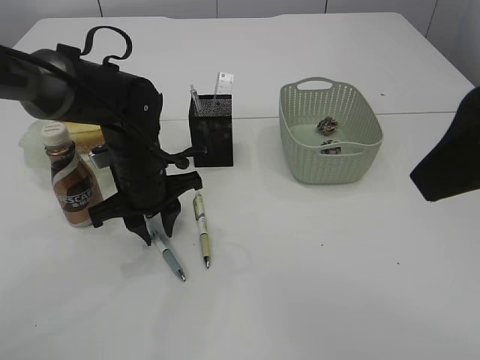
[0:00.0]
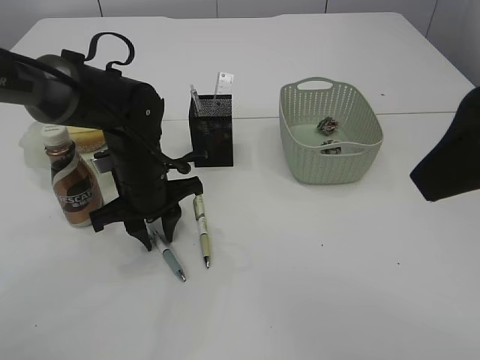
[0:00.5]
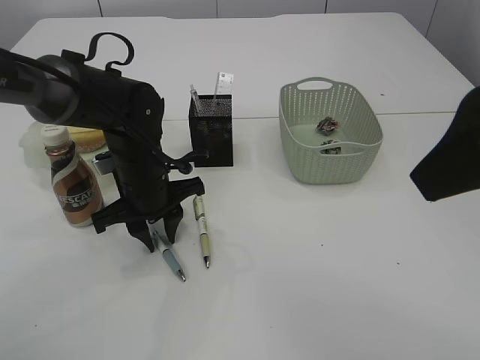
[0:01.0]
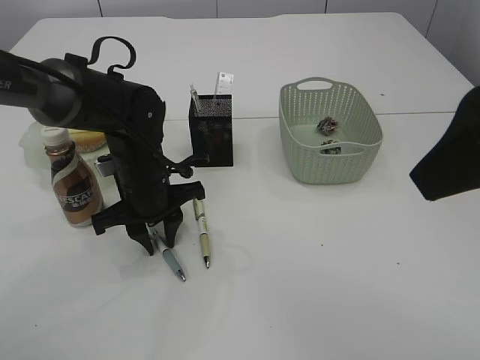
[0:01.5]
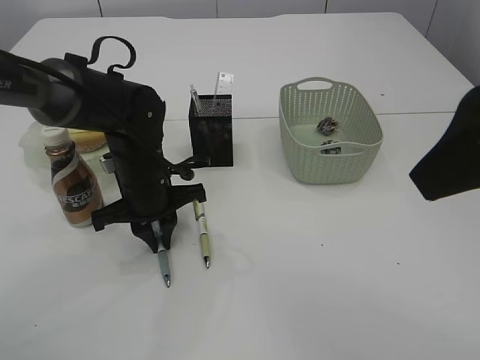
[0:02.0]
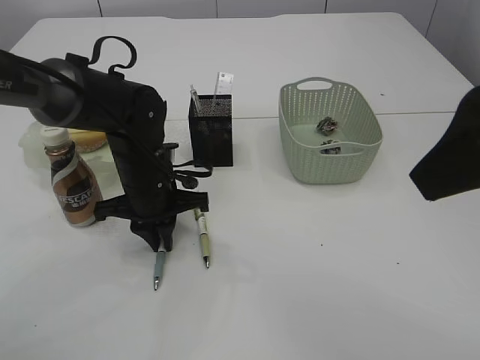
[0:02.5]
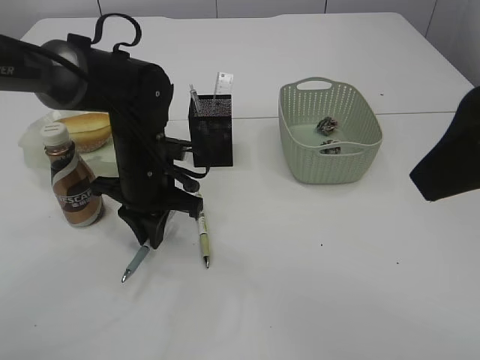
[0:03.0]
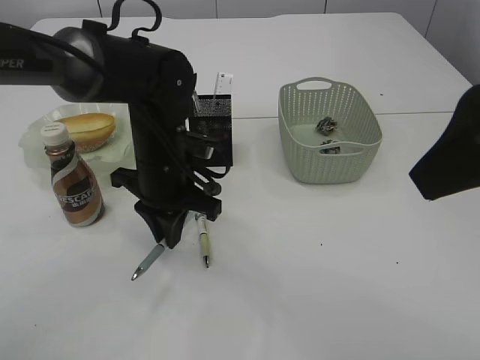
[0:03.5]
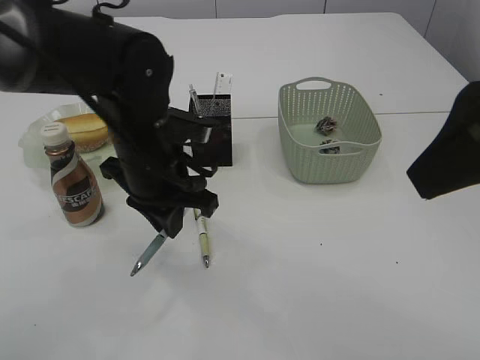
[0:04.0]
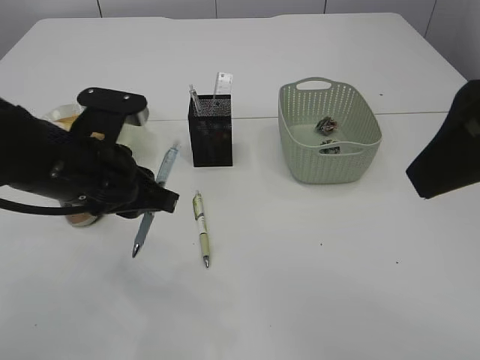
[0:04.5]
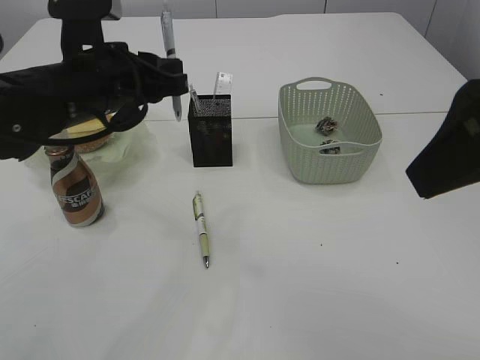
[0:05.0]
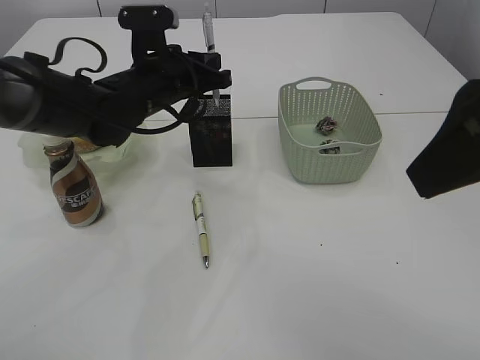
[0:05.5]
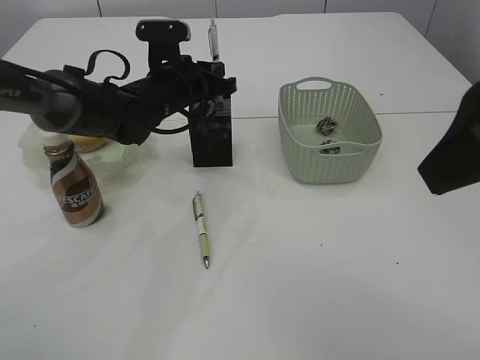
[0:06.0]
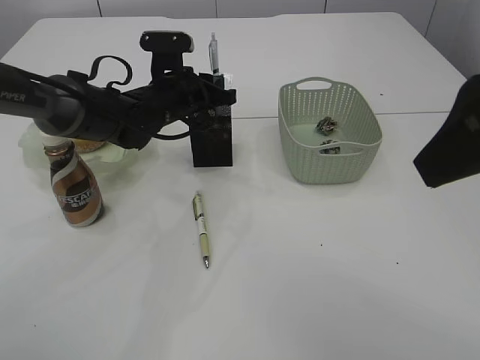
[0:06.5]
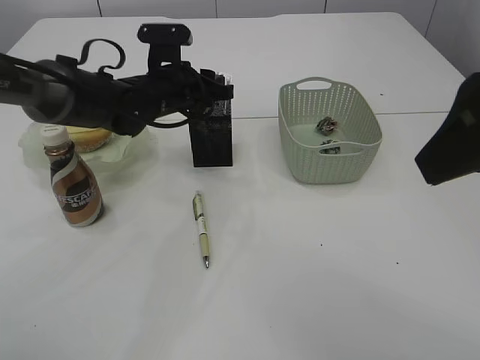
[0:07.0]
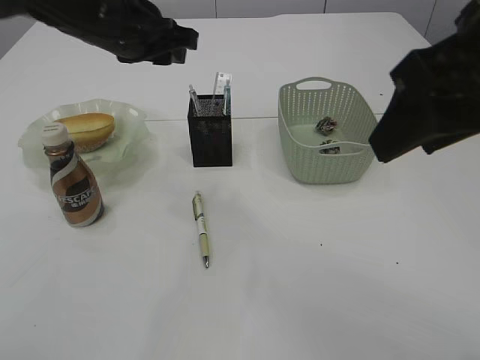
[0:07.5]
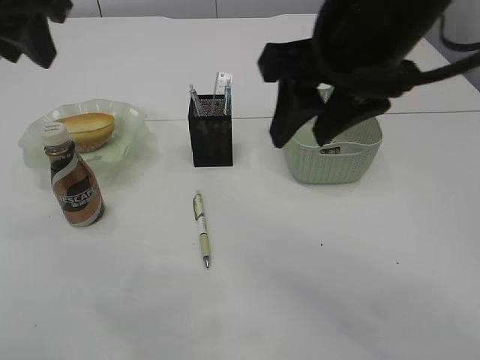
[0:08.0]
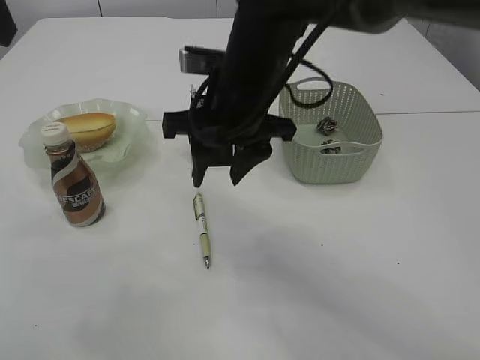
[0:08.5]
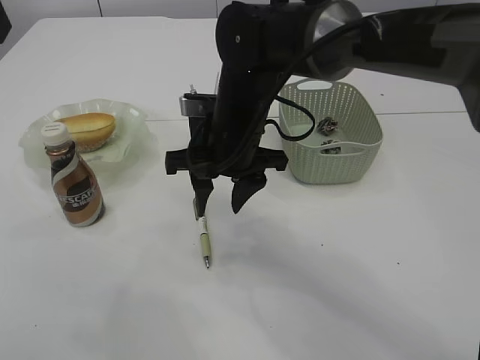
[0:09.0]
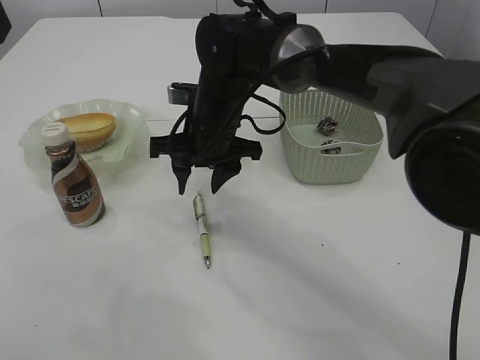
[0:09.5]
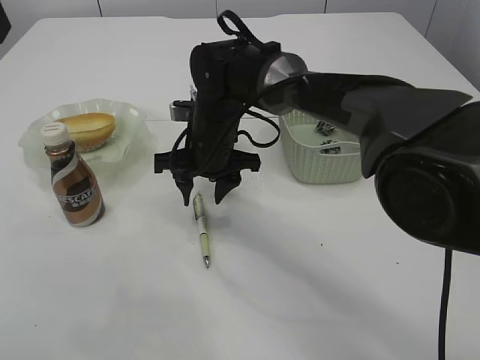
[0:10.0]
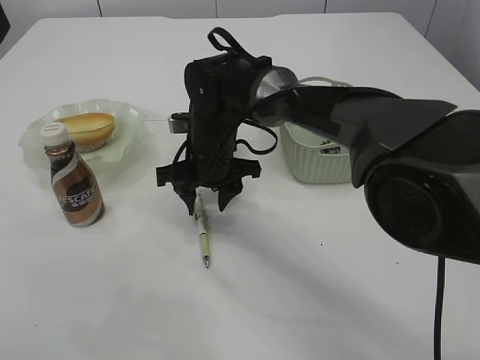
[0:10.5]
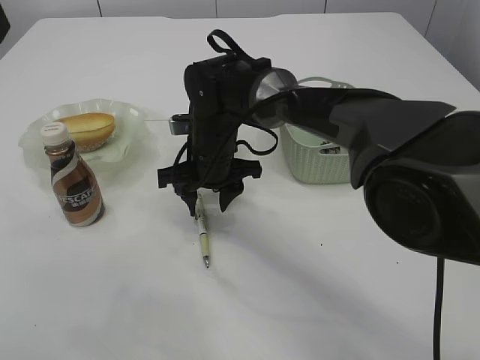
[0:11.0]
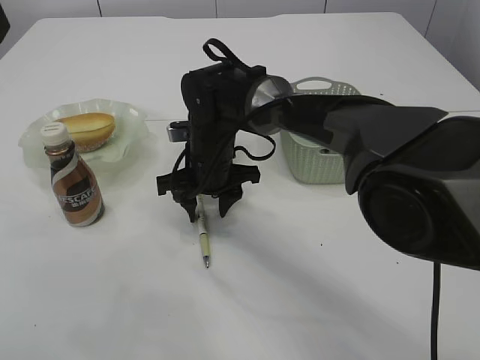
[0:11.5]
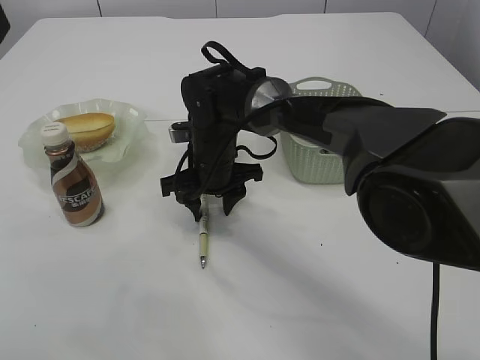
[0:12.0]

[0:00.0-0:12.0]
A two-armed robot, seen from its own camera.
Step, 0:00.0 to 0:03.5: Pick up the pen with left arm.
Step, 0:04.0 to 0:07.5: Place the pen into the pen holder.
0:00.0 to 0:02.0: There are only small adjustments of the grippers.
0:02.0 to 0:04.0: The left gripper is displaced upward by some 5 cm.
0:04.0 to 0:06.0: The left gripper heads forward, covering roughly 15 cm.
0:06.0 to 0:08.0: The left gripper shifts about 30 cm upward, backward and to the left, and opens up. Meanwhile the right gripper moves forward and to the left, about 15 cm.
0:08.0 to 0:10.0: The right gripper goes some 25 cm downward, forward and to the left.
0:10.0 to 0:12.0: There are only small adjustments of the grippers.

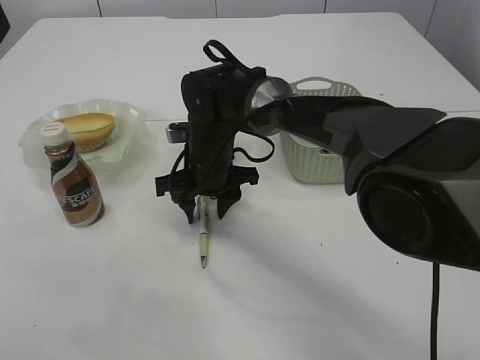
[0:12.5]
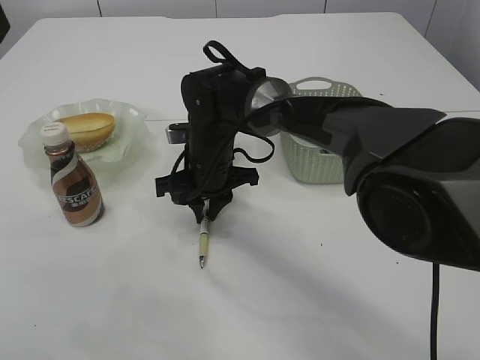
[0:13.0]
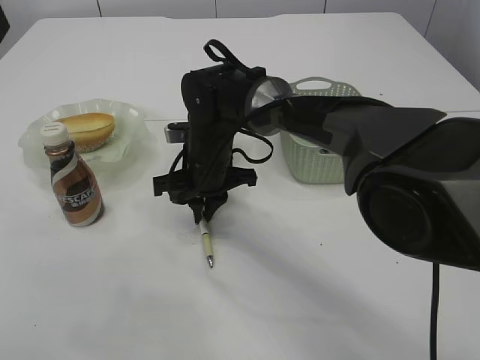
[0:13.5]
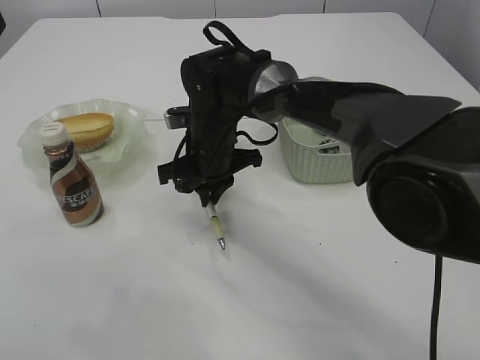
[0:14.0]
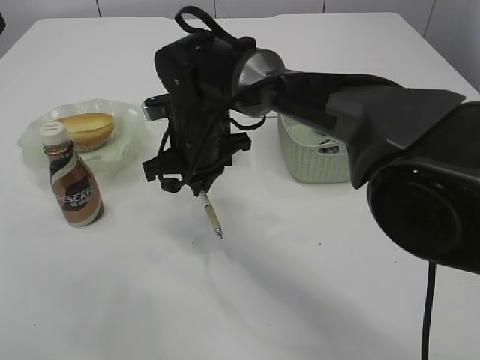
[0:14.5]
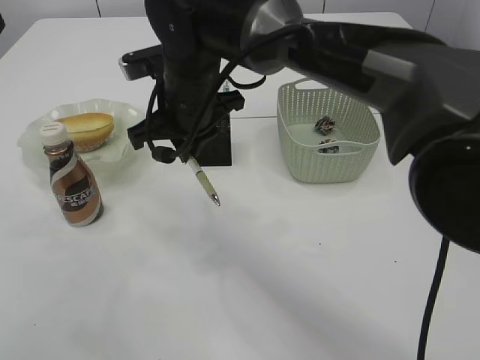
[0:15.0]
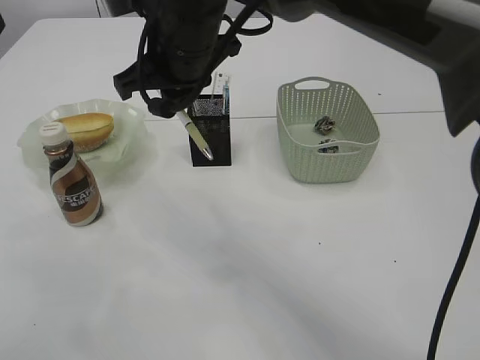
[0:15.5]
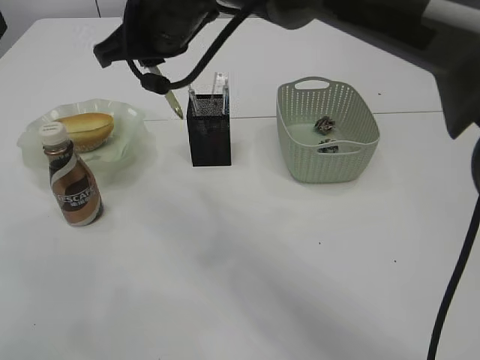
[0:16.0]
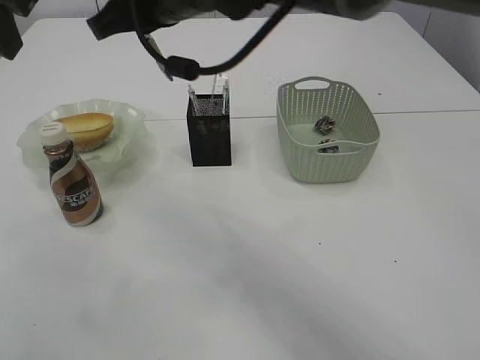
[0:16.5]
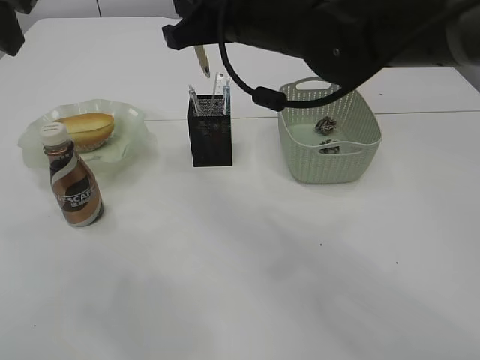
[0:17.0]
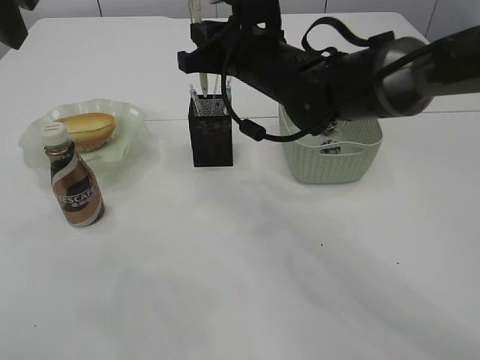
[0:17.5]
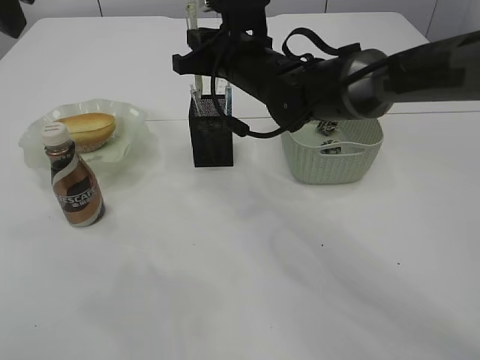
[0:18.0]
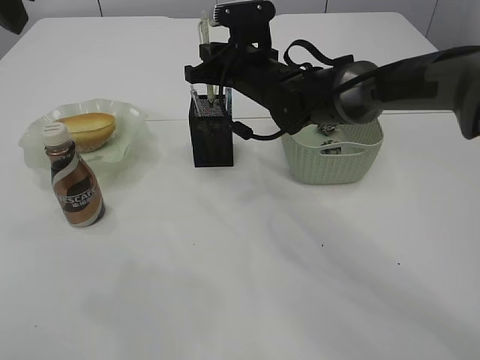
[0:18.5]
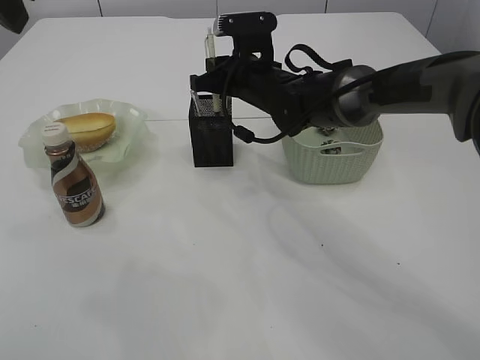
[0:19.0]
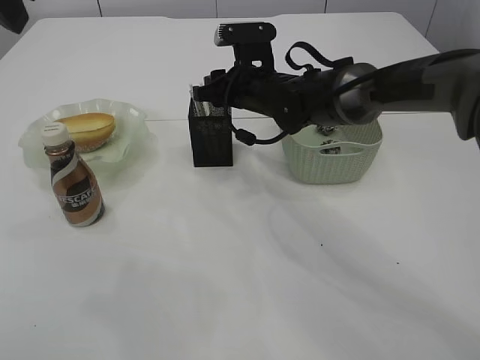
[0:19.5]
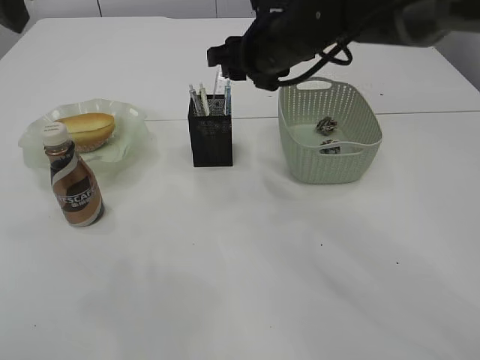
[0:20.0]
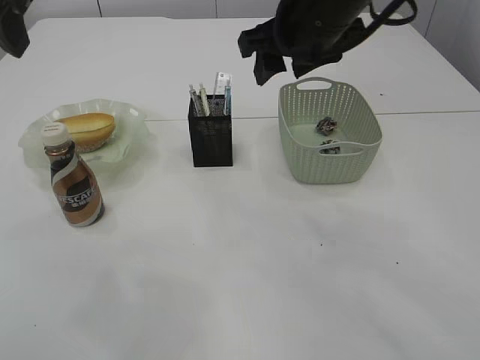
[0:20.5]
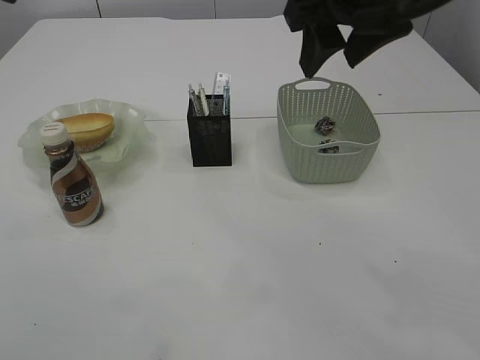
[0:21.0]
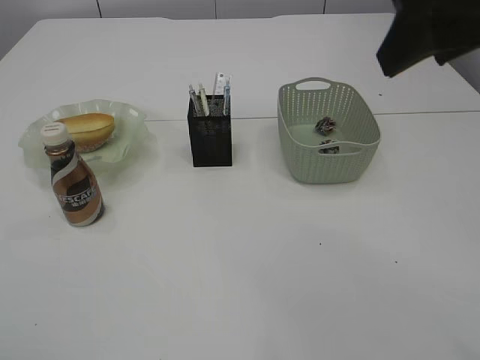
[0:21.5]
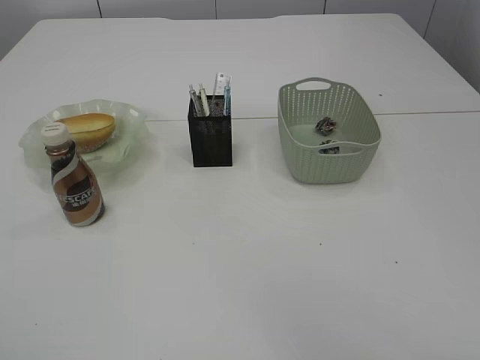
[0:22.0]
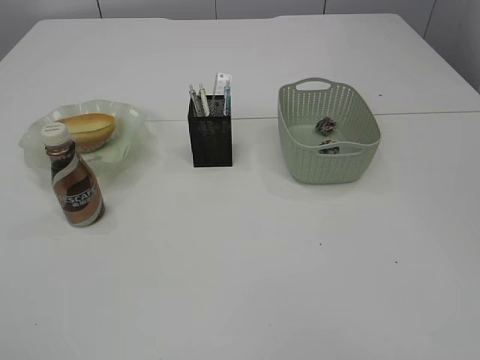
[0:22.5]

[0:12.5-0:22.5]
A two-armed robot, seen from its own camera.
Step, 0:12.5 to 0:14.5: Pick up the pen with right arm.
Step, 0:15.0 to 0:20.5: Place the pen into the pen holder.
0:12.5 to 0:14.5: The right gripper closes.
0:14.5 to 0:16.5: The right gripper is displaced upward by approximately 15 cm.
0:16.5 to 0:18.5: The right gripper travels downward, forward and to the right by approximately 20 cm.
0:18.5 to 0:20.5: The left gripper opens its fingers. Meanwhile the right gripper goes roughly 15 cm upward, backward and to the right, and opens.
0:20.5 to 0:22.5: The left gripper shifts some 25 cm backward; the right gripper moves backward and to the right, roughly 40 cm.

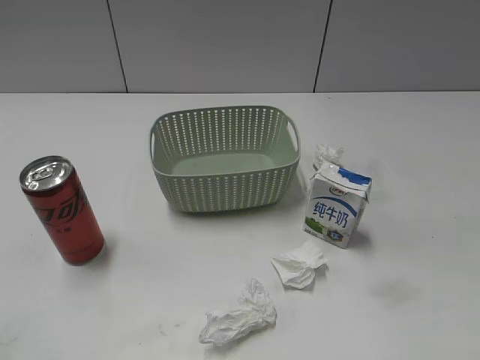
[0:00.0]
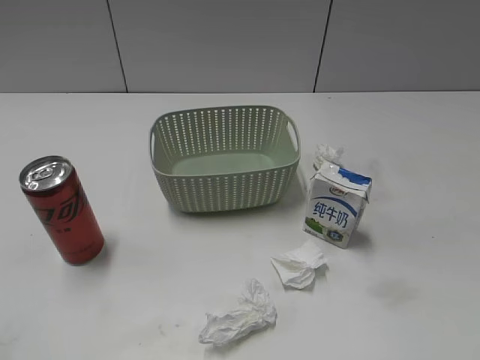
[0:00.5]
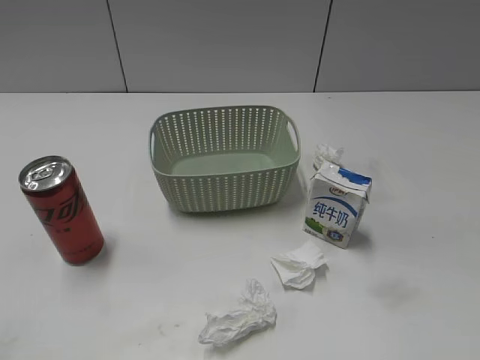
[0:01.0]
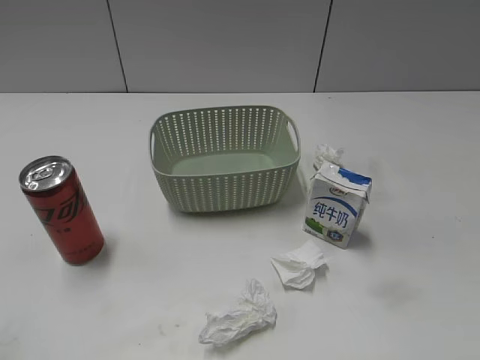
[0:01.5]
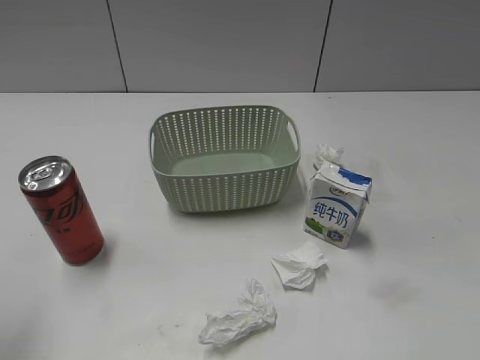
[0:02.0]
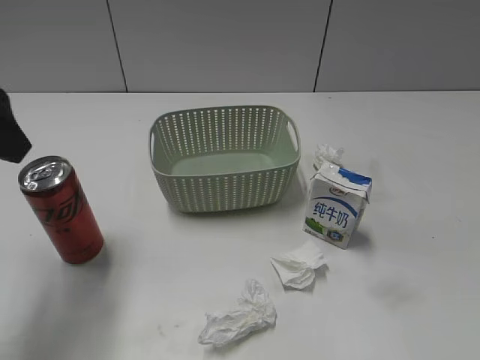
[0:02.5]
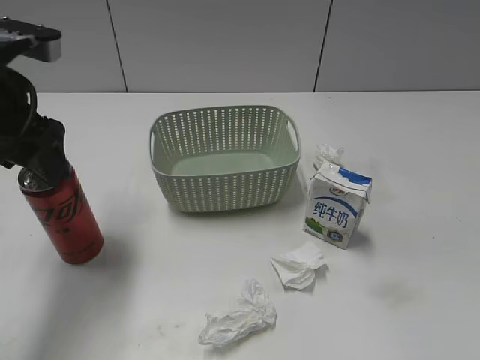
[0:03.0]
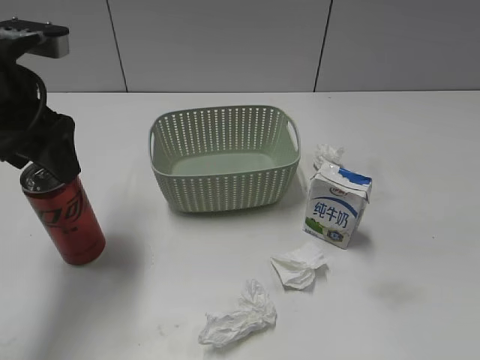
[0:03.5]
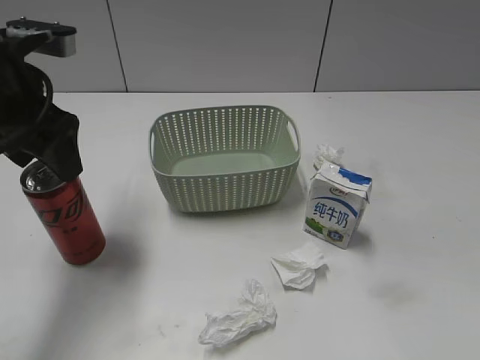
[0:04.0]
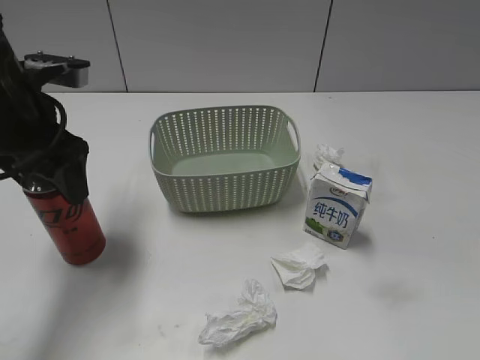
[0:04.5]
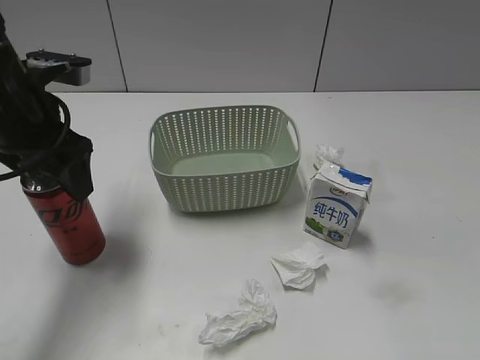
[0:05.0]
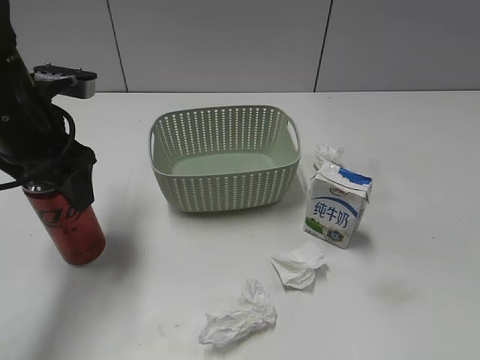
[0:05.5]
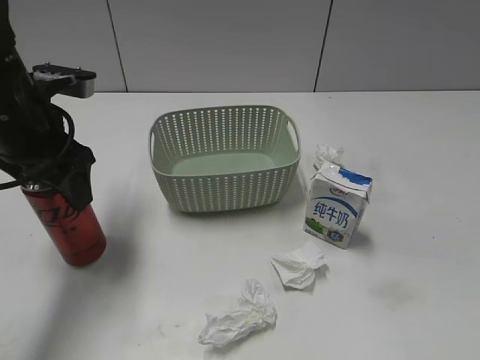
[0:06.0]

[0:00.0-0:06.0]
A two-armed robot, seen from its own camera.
Step, 0:02.5 to 0:06.0: Grasp the cola can with left gripper.
0:02.0 to 0:04.0: The left gripper heads forward, to the right and downward, covering about 20 cm.
0:04.0 to 0:06.0: The left gripper closes.
